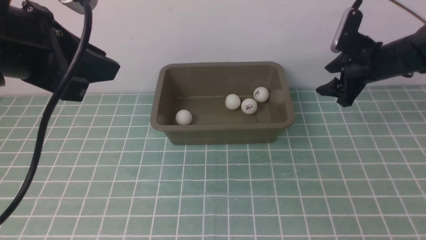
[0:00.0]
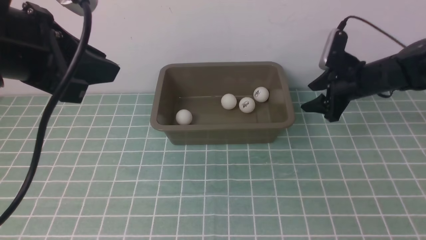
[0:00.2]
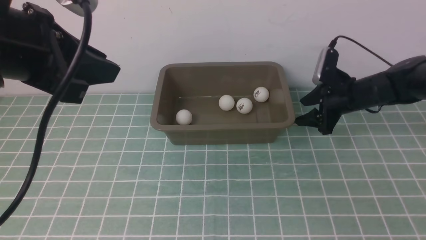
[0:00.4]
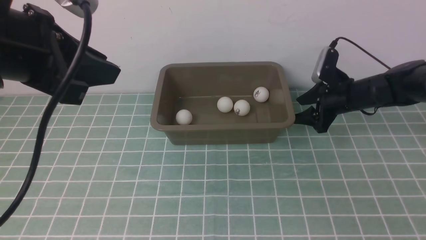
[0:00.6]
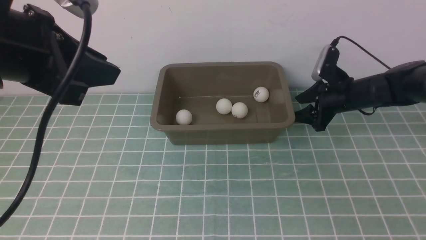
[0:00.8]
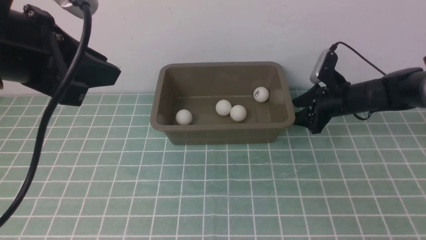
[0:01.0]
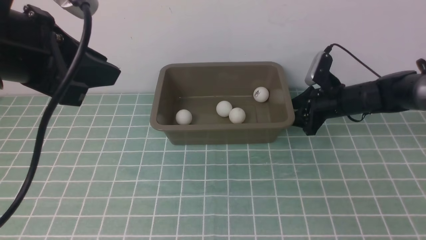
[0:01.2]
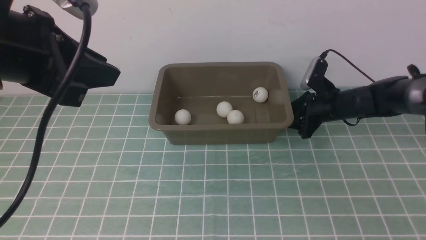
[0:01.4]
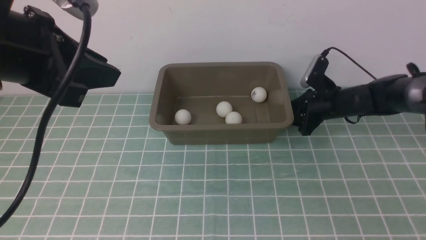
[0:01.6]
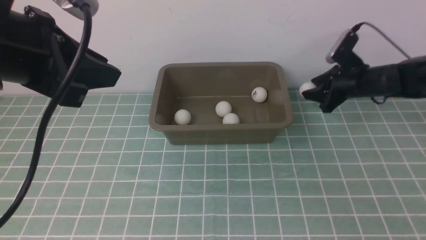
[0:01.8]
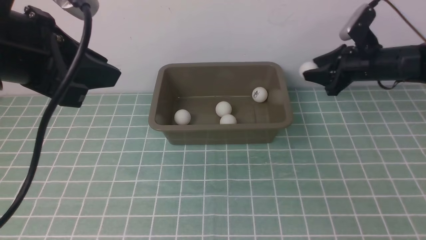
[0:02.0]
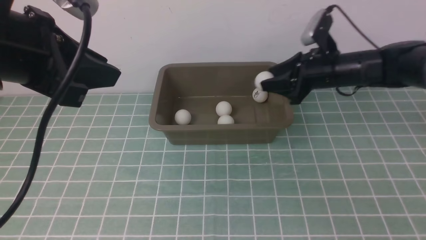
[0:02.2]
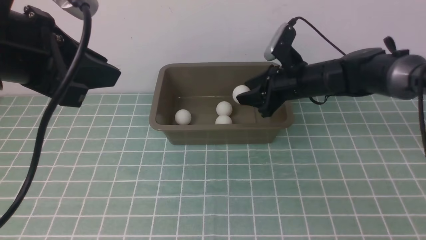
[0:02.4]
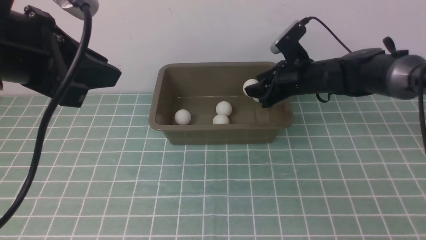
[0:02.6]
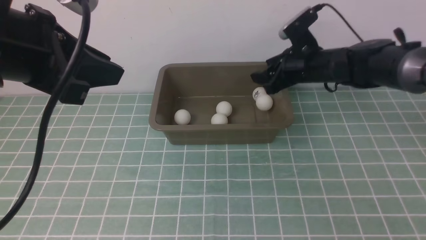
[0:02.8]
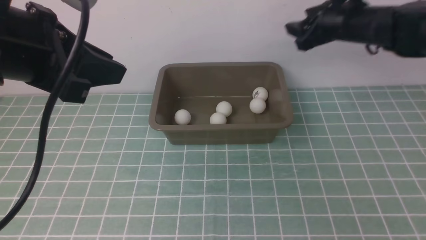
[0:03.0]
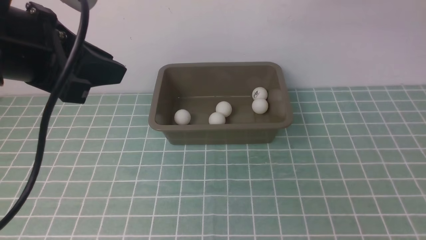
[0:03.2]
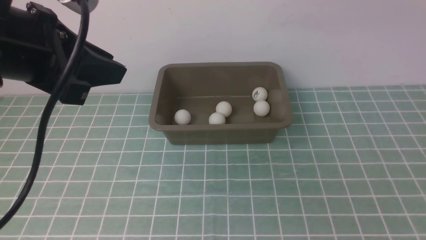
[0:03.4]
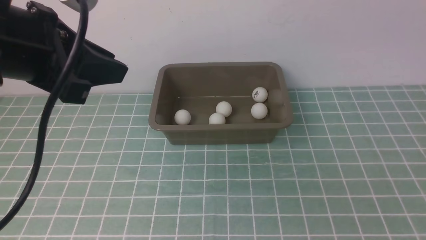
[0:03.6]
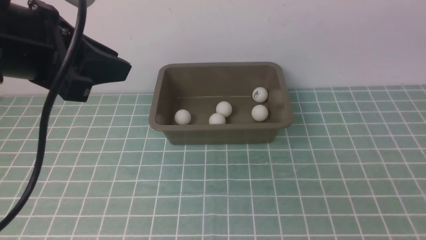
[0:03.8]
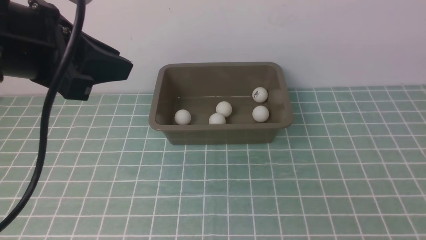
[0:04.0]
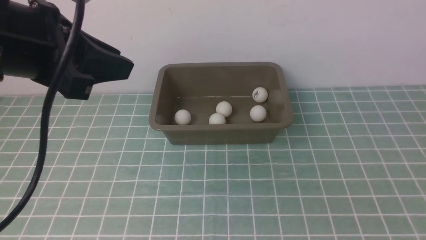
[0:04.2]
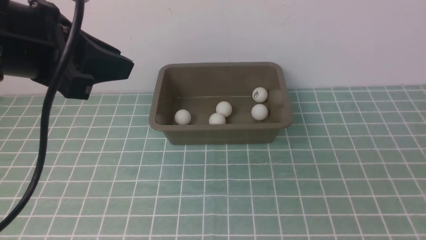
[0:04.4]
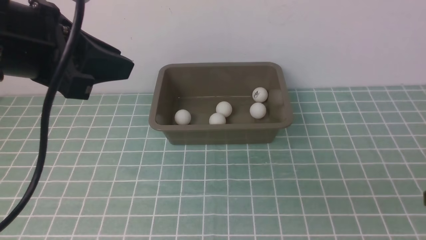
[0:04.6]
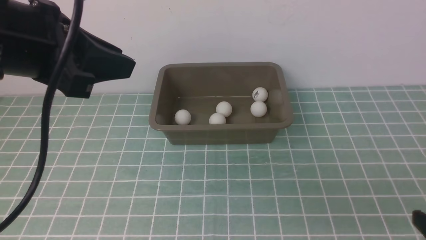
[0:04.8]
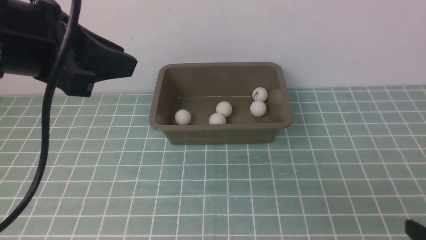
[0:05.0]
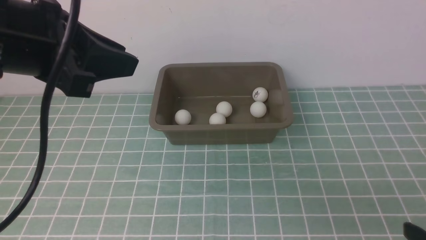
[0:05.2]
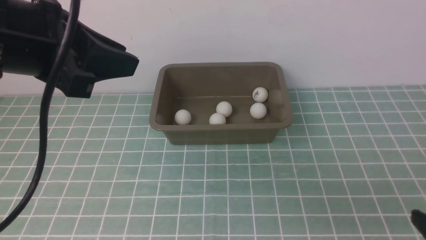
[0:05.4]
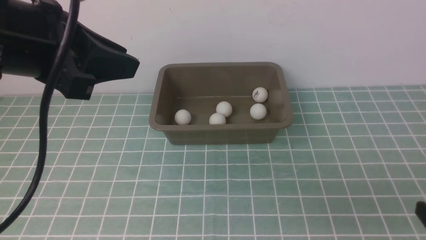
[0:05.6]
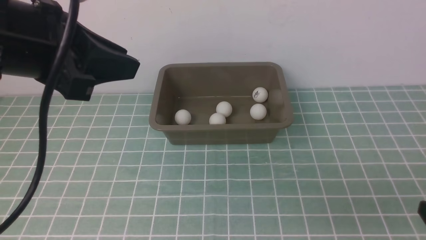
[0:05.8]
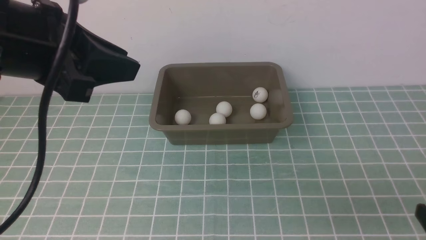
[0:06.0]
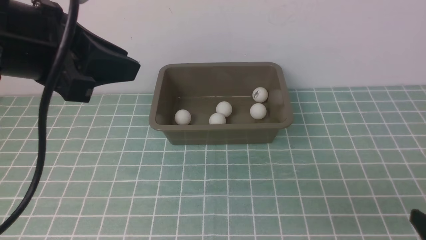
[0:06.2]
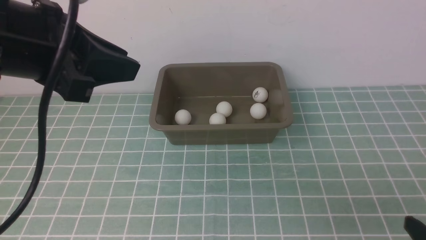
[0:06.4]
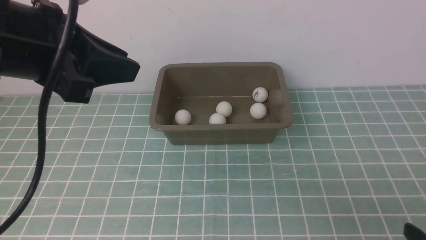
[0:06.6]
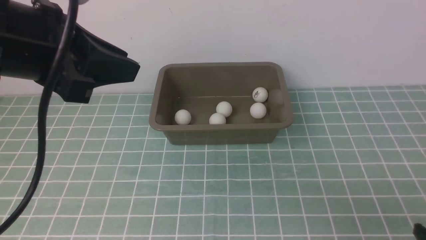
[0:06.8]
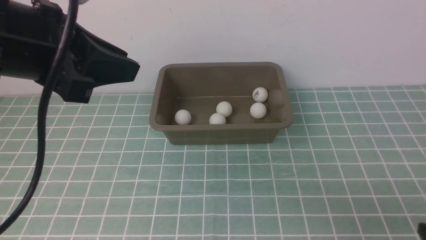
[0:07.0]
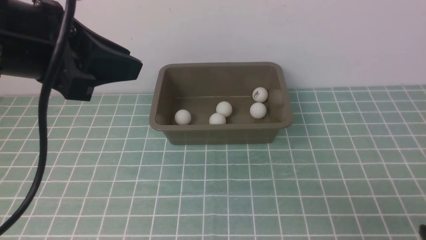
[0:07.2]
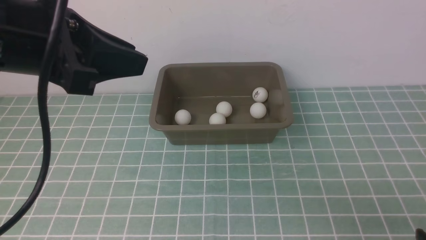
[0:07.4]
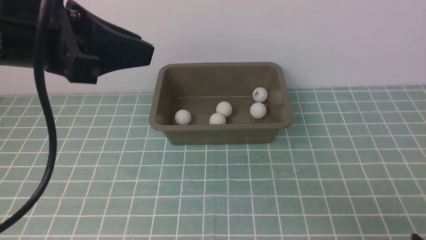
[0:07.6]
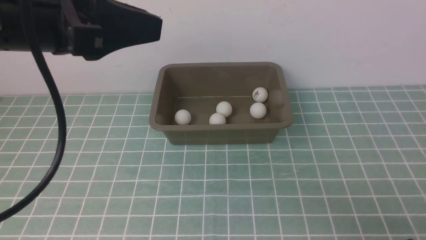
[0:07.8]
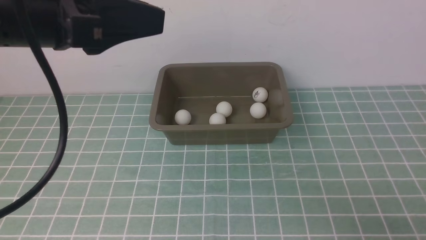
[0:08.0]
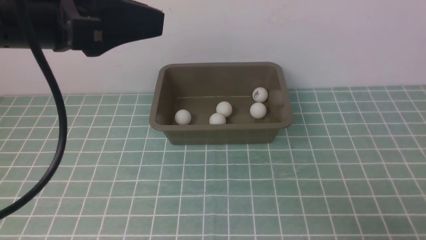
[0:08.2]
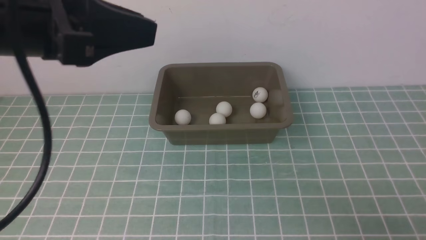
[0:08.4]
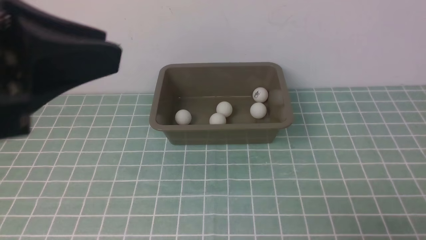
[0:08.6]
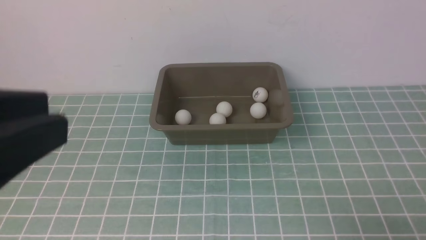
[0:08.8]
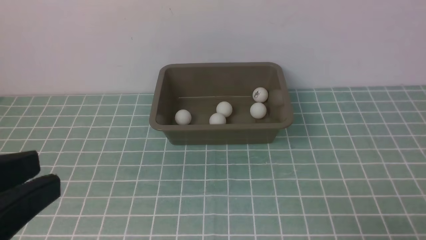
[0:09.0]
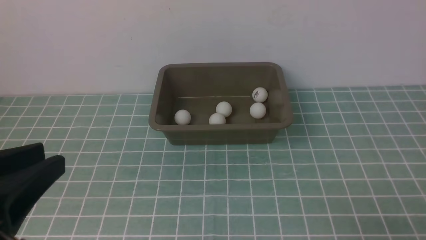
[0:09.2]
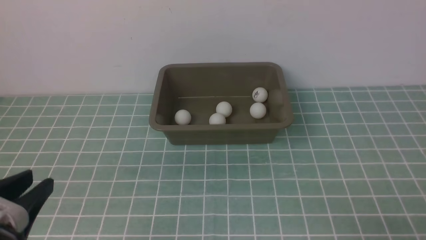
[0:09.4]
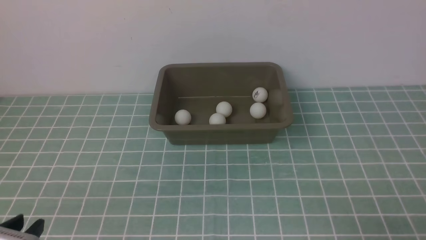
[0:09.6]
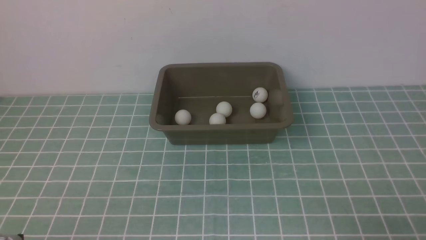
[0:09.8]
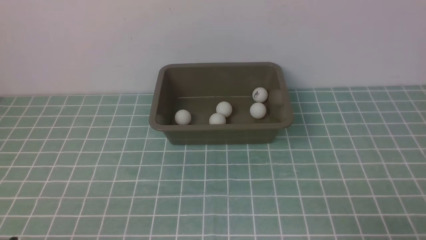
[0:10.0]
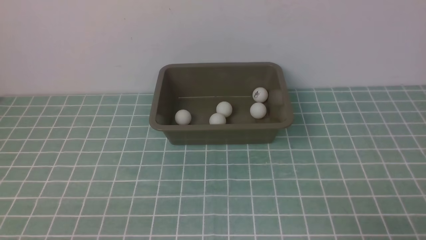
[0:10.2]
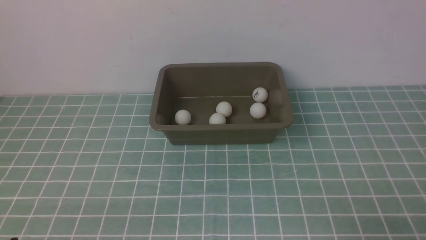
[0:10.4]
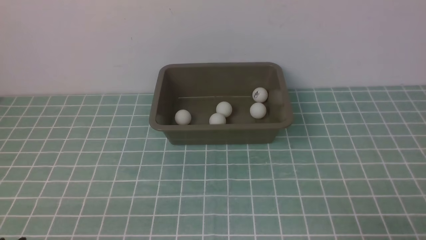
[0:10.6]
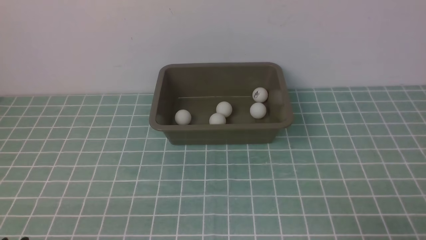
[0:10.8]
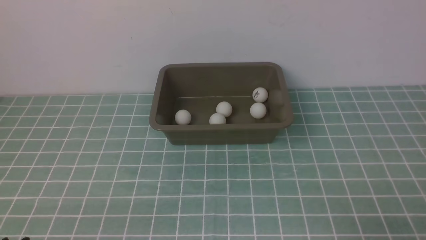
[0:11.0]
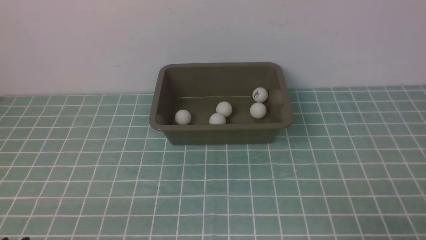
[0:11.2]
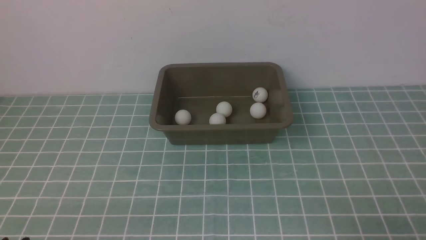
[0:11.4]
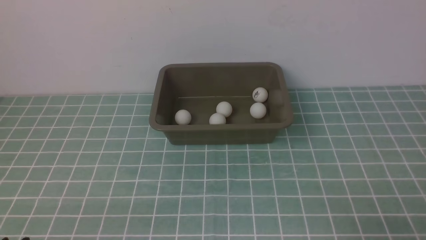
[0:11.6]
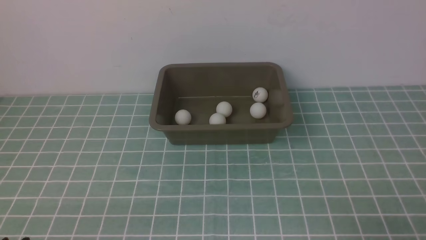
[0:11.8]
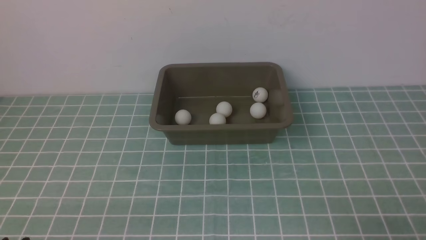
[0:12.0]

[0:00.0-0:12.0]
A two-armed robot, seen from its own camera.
Step, 0:00.0 to 0:01.8: use the right arm to clamp the table tennis ball closest to it.
Step, 0:02.0 to 0:02.8: use the right arm to put the table tennis ball into the box.
0:00.0 to 0:01.6: The right gripper goes downward and returns, about 10 cm each way, and closes its fingers.
0:01.6 to 0:03.0: The right gripper moves upward and backward, roughly 25 cm, and opens.
0:03.0 to 0:04.4: The right gripper travels backward and downward by approximately 30 cm.
0:06.0 to 0:07.6: The grippers move only a little.
0:07.6 to 0:09.0: The left gripper travels backward by roughly 15 cm.
0:09.0 to 0:10.4: The left gripper goes roughly 20 cm downward.
0:10.4 to 0:12.0: The two grippers keep their place.

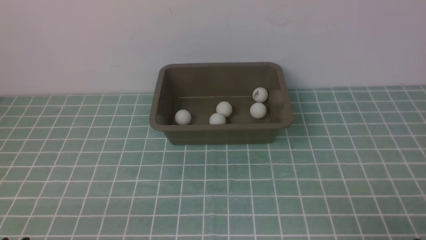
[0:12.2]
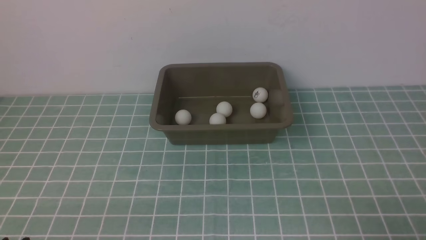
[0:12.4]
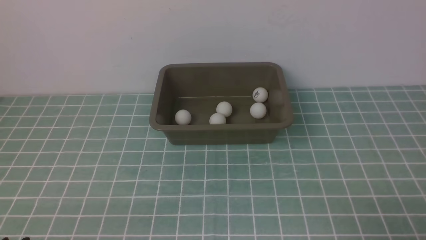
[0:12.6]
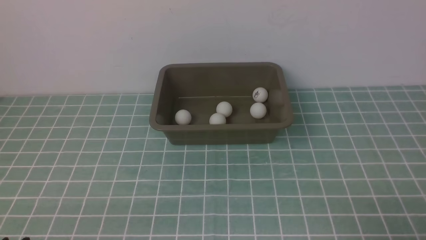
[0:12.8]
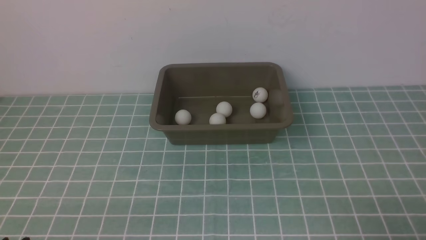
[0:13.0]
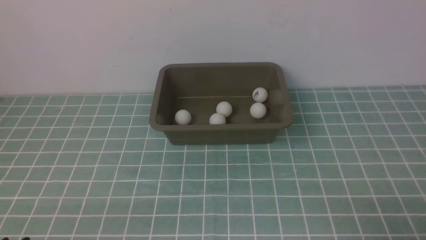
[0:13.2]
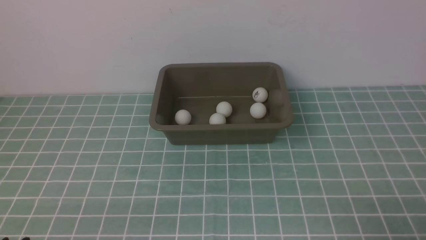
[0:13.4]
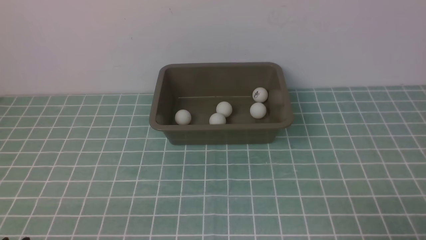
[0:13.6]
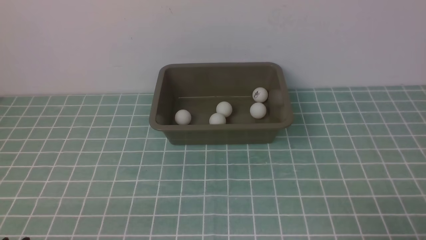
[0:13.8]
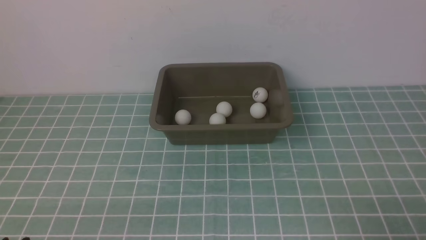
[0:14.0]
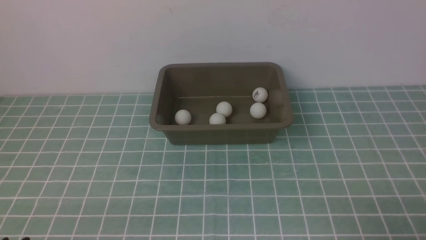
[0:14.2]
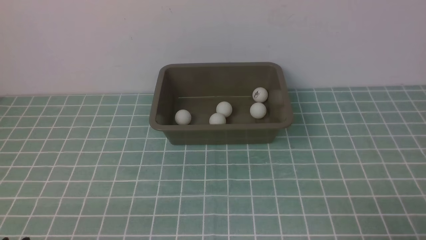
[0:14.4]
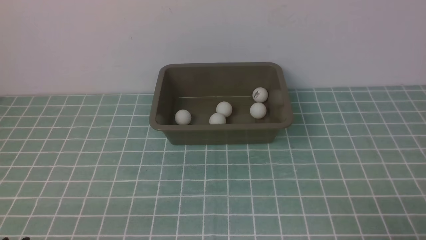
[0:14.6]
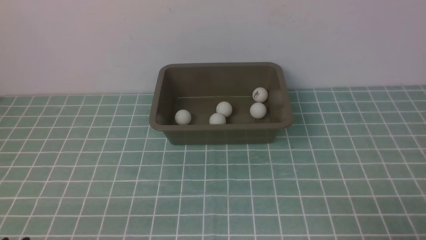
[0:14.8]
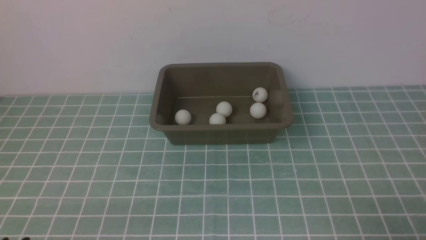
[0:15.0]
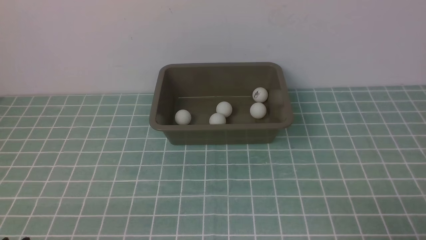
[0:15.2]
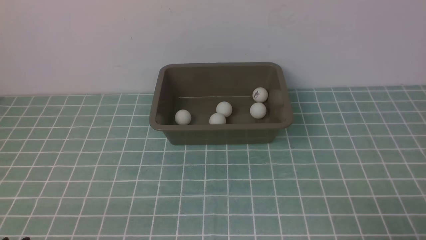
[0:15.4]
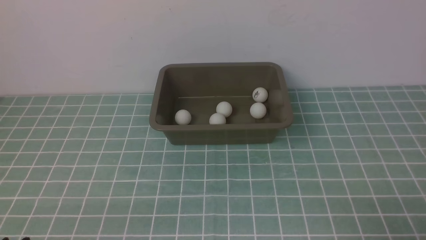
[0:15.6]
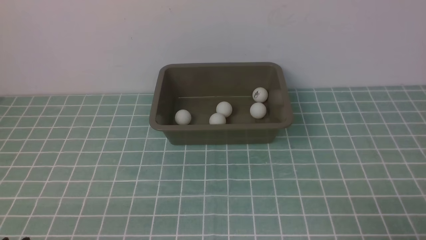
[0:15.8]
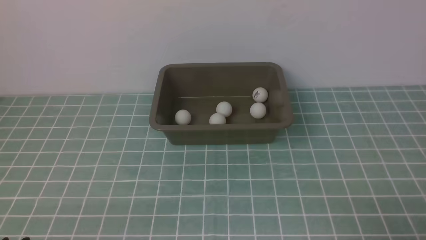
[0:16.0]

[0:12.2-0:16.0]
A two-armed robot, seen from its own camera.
0:13.4 to 0:16.0: Both grippers stay about where they are.

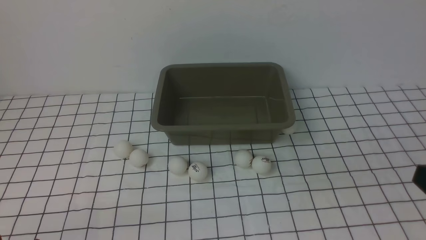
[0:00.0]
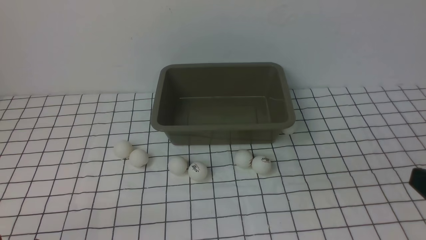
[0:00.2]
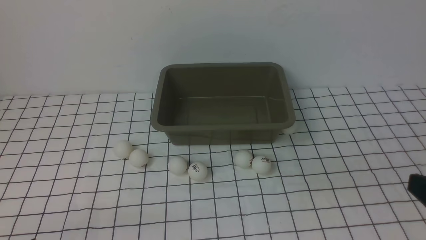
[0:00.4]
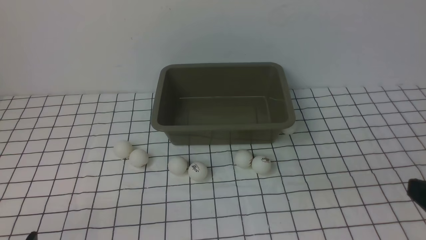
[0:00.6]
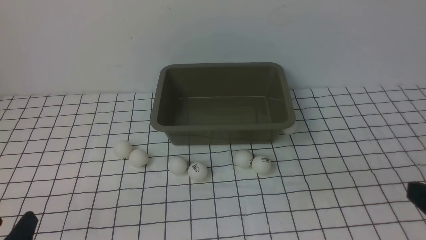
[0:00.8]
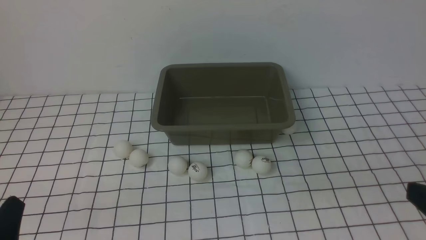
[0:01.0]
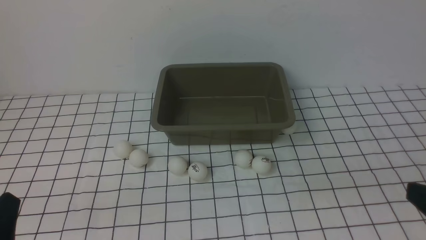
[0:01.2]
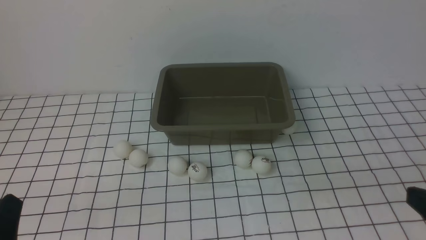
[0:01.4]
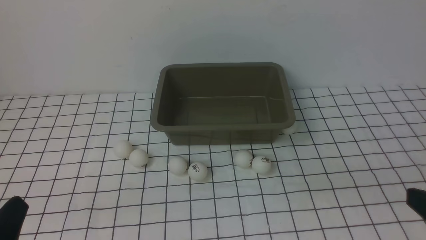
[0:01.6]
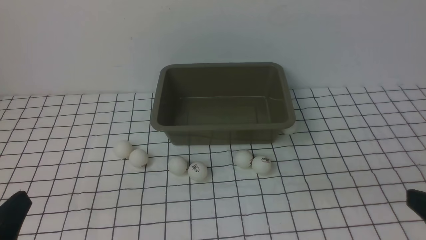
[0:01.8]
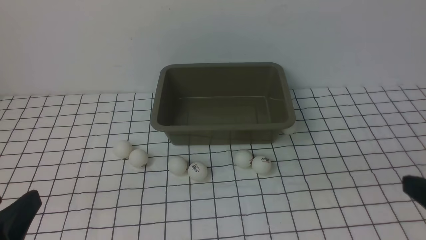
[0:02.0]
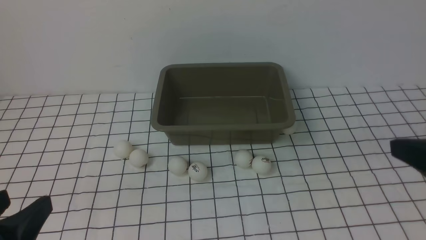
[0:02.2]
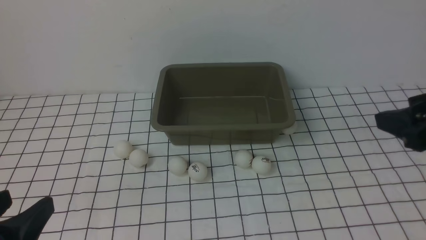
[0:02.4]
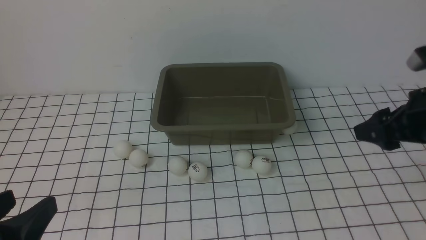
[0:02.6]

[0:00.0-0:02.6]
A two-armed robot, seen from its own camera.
0:01.2 to 0:02.6: The left gripper goes roughly 5 cm upward, and opens its fingers. The right gripper moves forward, about 20 cm.
